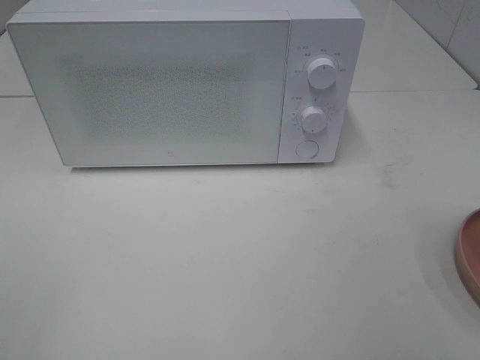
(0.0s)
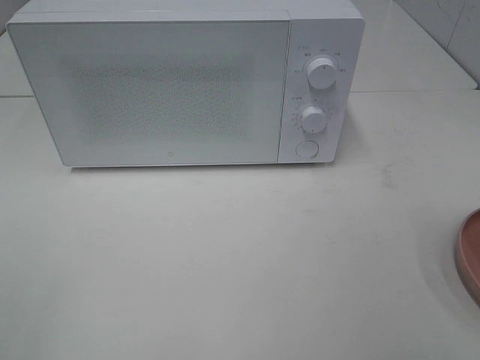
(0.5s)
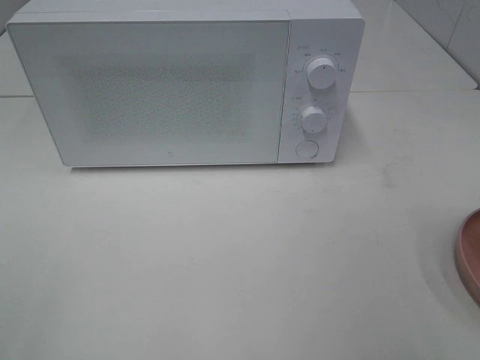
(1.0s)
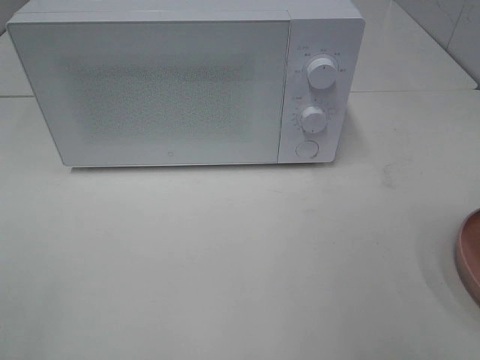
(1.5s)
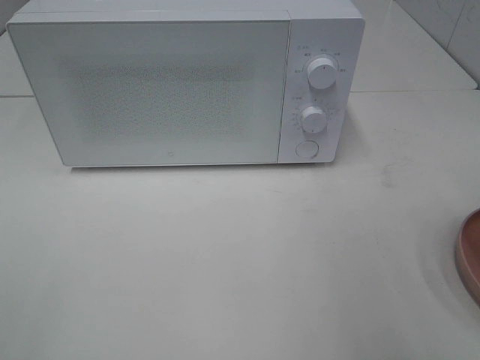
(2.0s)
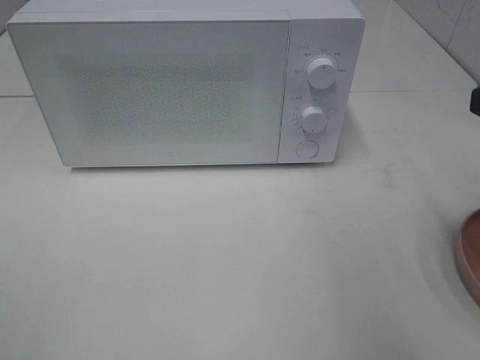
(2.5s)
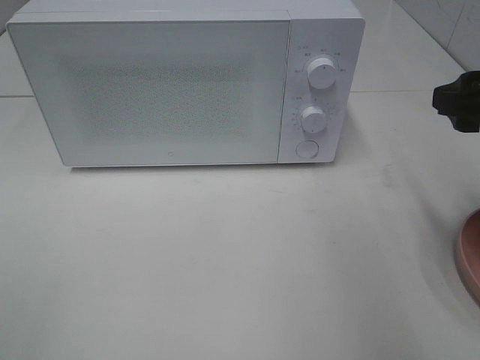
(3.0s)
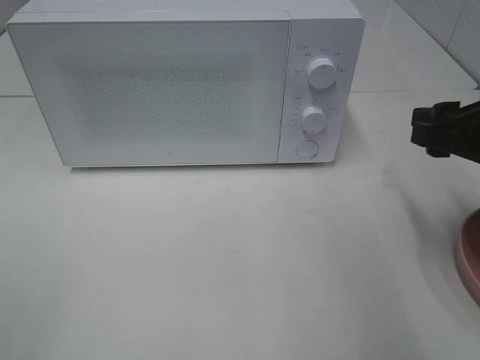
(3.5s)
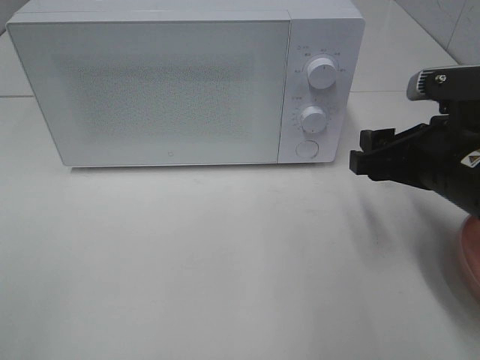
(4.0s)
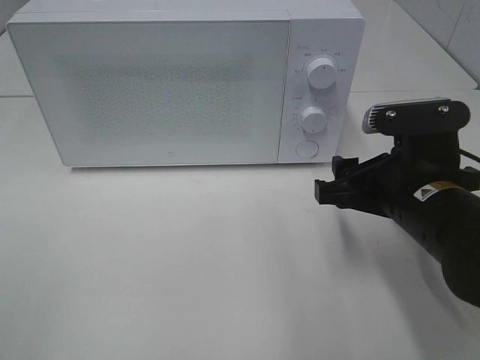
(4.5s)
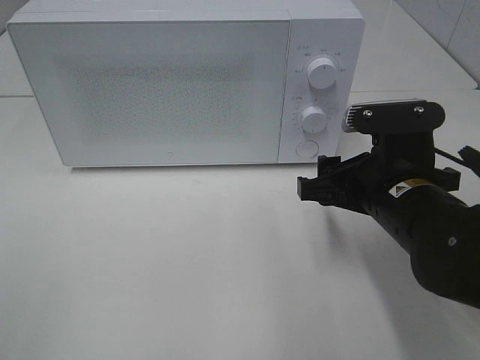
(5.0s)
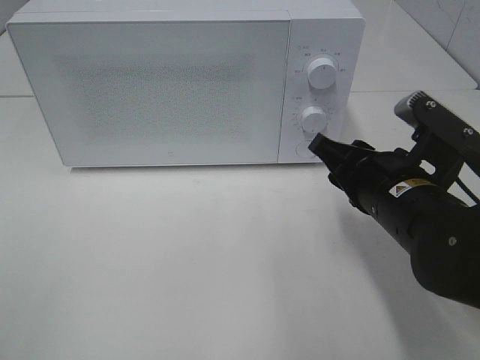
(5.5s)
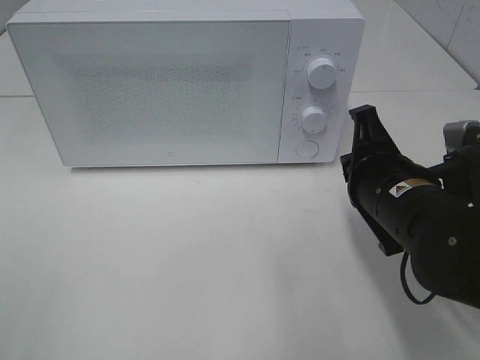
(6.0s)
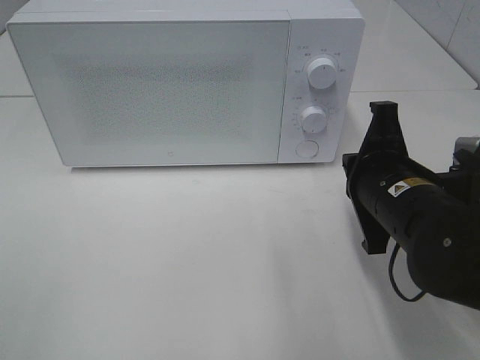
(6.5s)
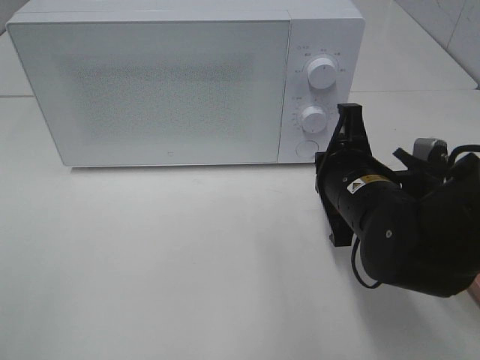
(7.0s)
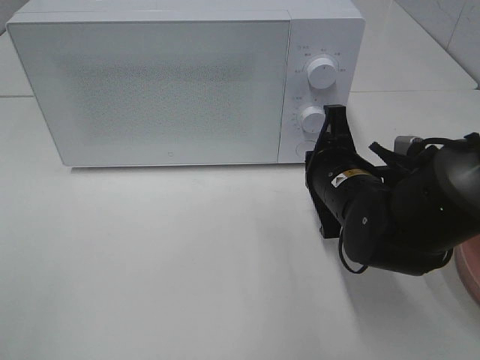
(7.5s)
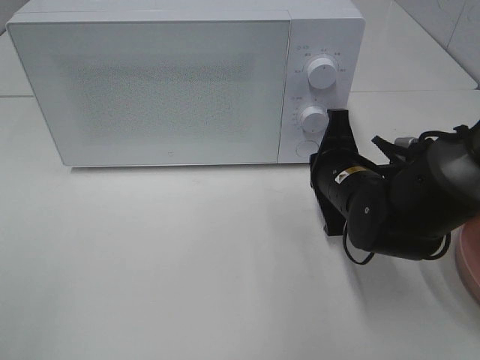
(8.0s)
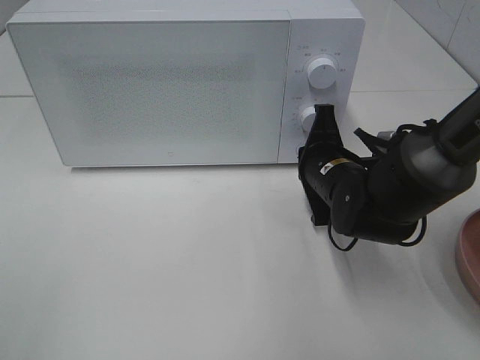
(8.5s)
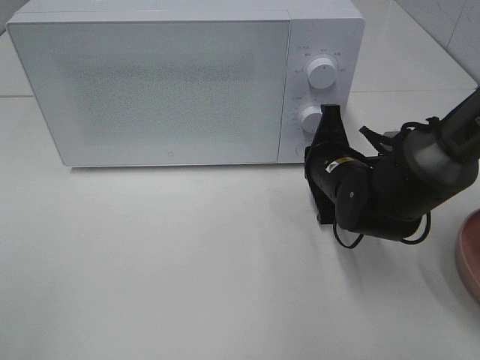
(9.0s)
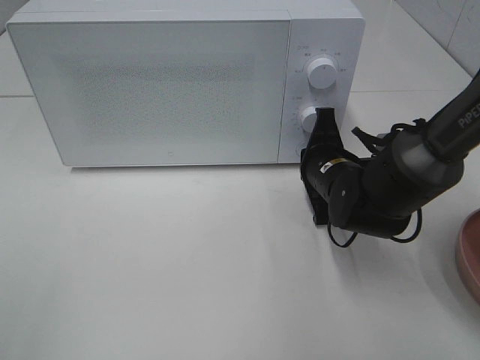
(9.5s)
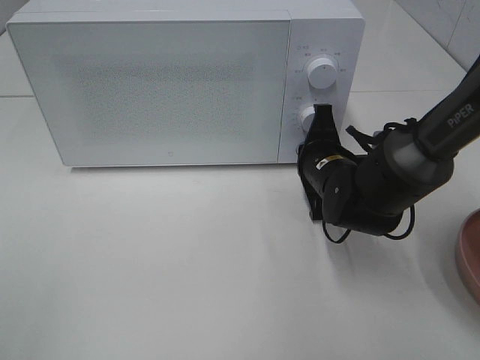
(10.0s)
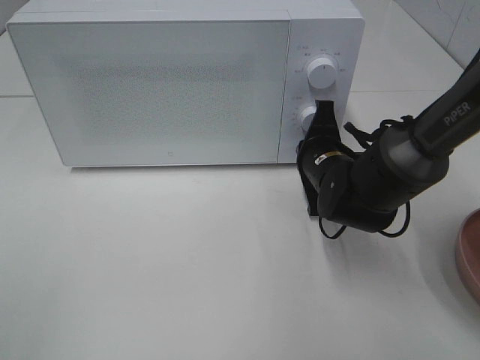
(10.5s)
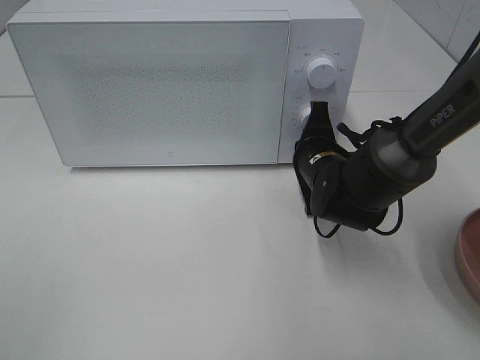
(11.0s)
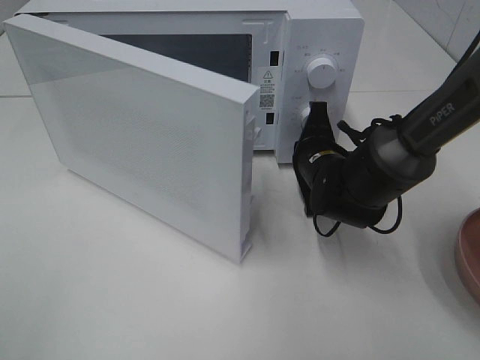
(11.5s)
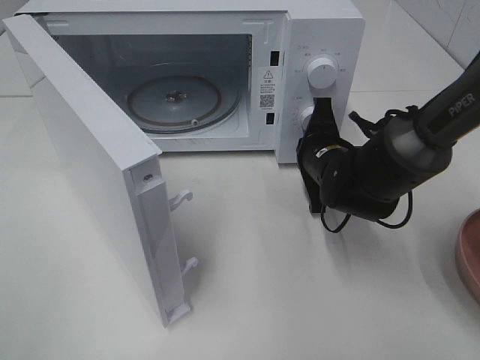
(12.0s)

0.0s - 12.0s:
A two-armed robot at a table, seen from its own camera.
Task of the whole recording: Heat the burger.
2.0s - 4.0s: The right gripper is displaced downward, forward and to the left by approximately 15 cm.
4.0s - 6.0s: The right gripper moves to the left, approximately 5 cm, and closes its fingers.
6.0s - 8.0s: The right gripper shifts roughly 5 cm forward.
8.0s - 10.0s: The grippers make only small movements.

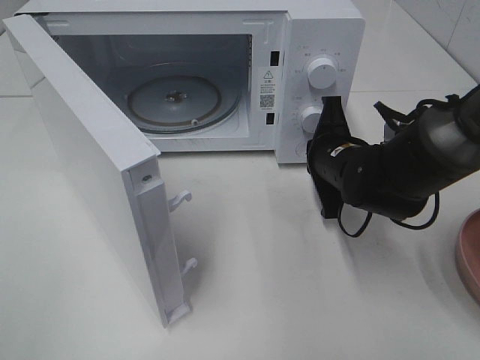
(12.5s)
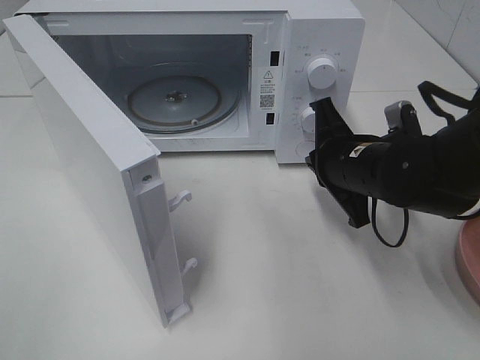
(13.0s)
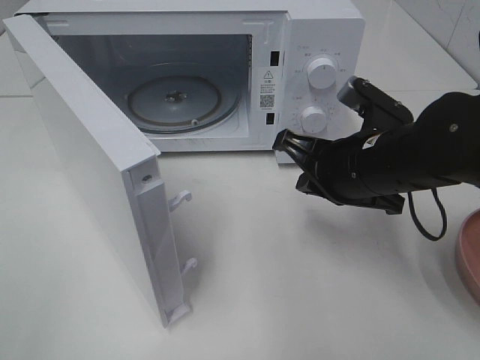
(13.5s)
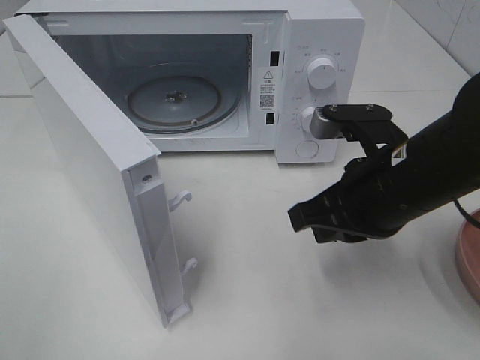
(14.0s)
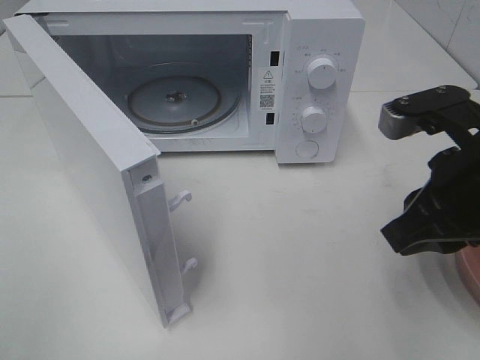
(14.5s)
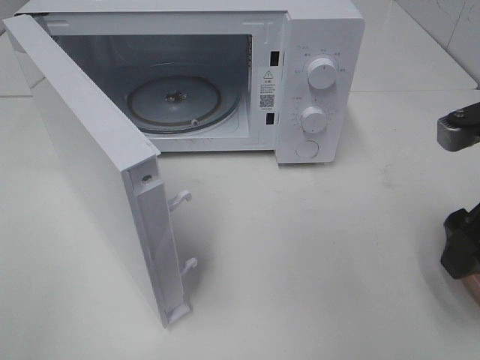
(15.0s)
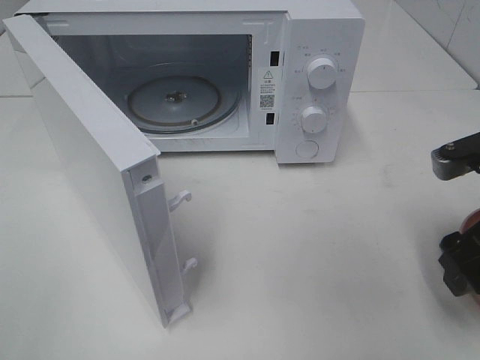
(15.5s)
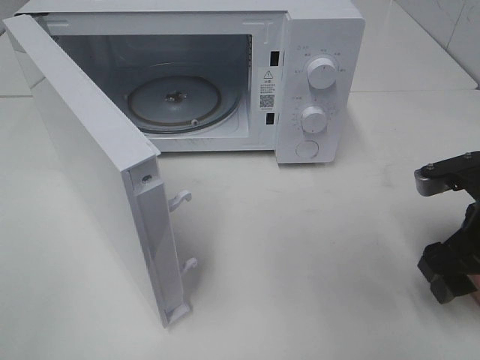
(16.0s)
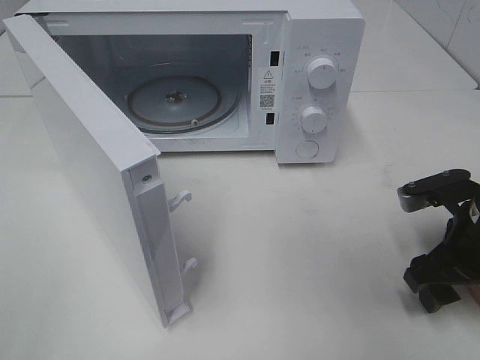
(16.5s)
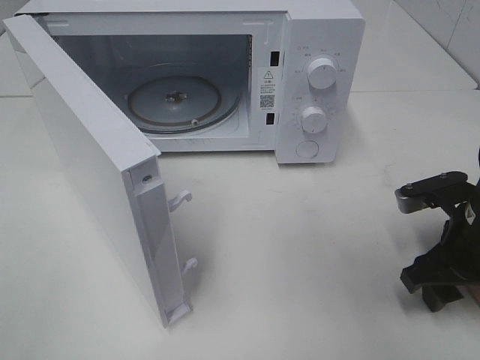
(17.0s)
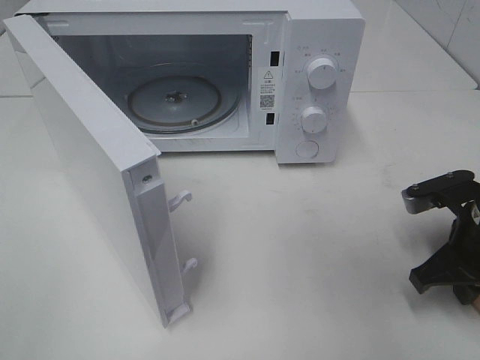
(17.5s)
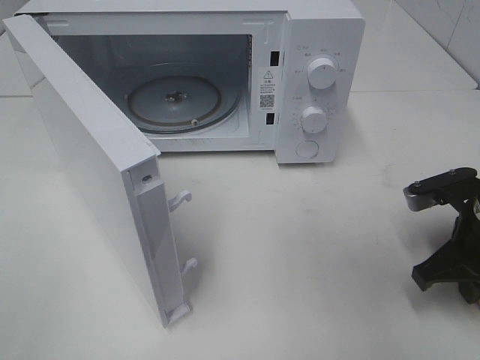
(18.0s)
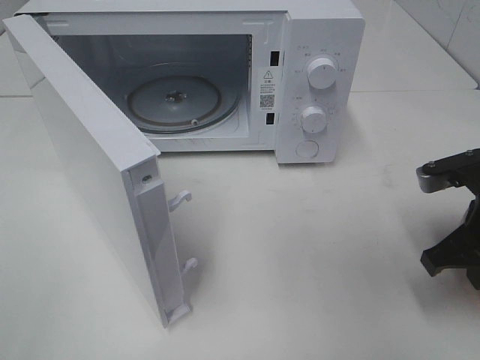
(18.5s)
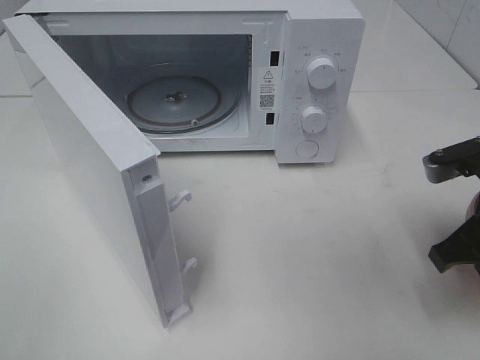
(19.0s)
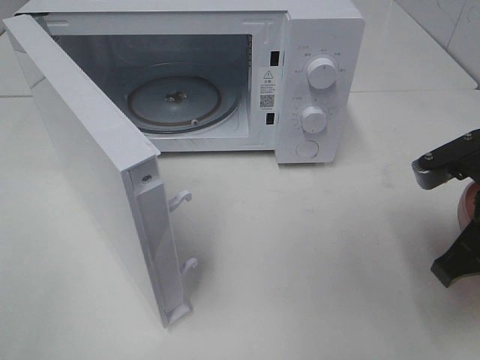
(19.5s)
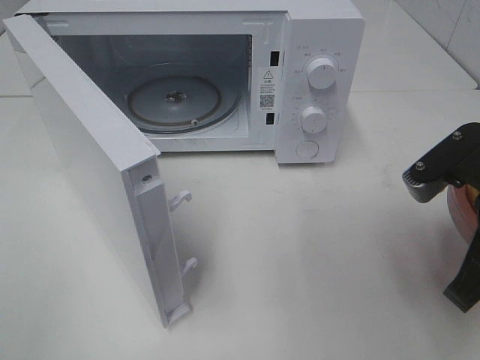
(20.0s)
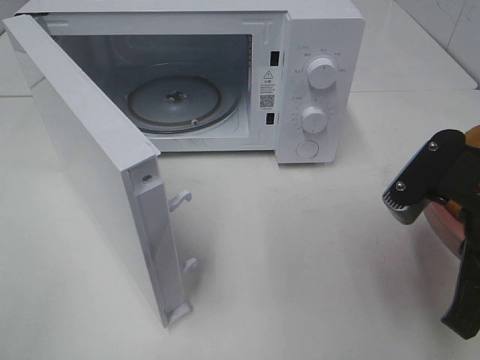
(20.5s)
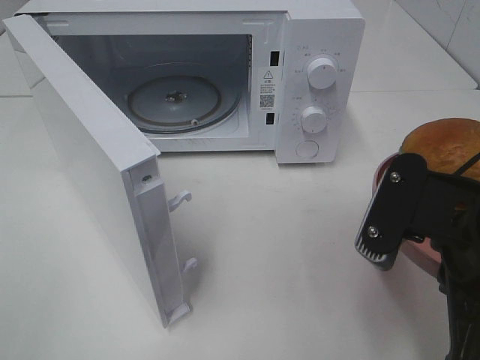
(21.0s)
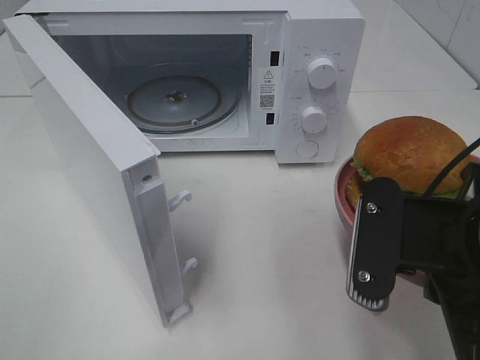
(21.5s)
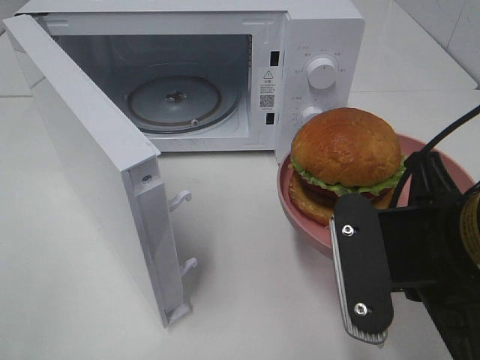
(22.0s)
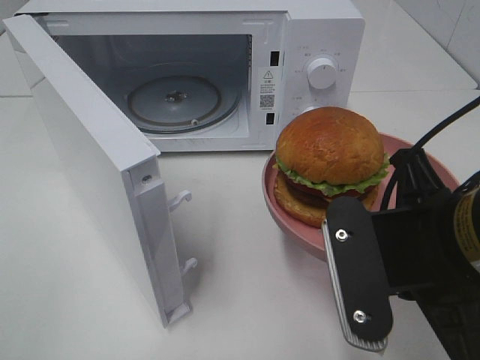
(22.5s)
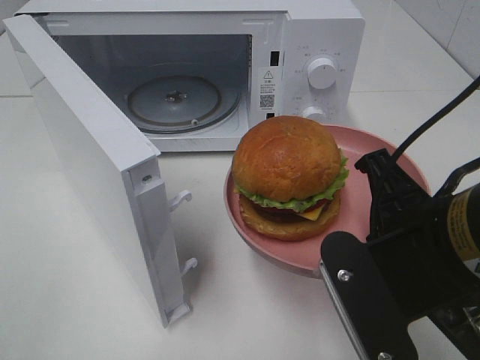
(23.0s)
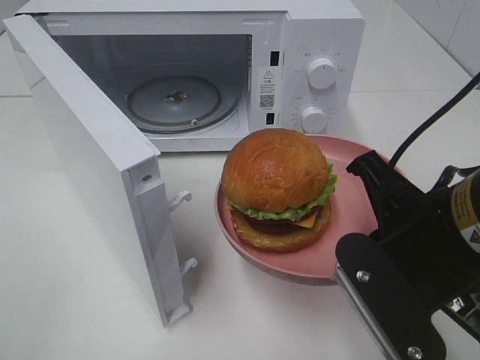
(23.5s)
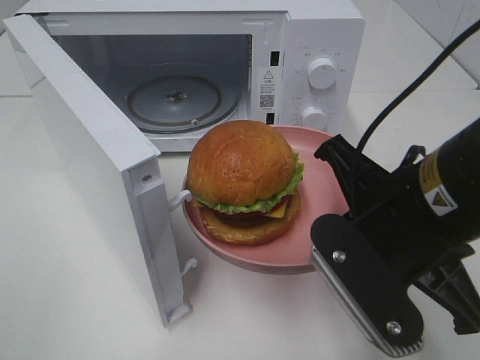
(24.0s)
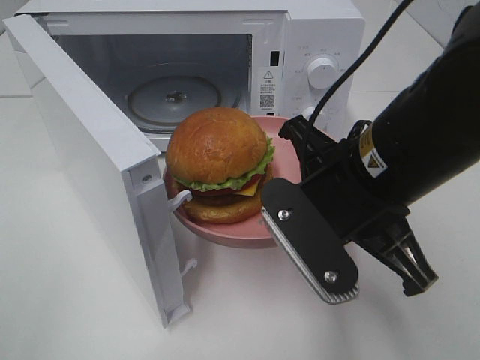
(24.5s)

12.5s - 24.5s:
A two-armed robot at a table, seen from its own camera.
Task of the whole recording: Heat the burger.
Step, 13.0s - 17.5s: Right hand: grab the plate with the hamburger.
12.5s - 14.5s: The right gripper goes about 20 cm backward and upward, and opens.
14.5s - 16.5s: The right gripper travels downward and to the right by about 10 cm, and opens its fingers.
16.5s - 18.5s: The right gripper closes up.
18.5s - 20.5s: The right gripper heads backward, upward and to the left, covering about 10 cm.
20.5s - 22.5s: The right gripper is displaced to the left by about 5 cm.
22.5s - 24.5s: The right gripper travels forward by some 5 cm.

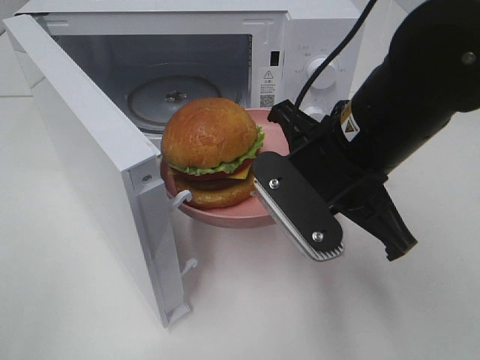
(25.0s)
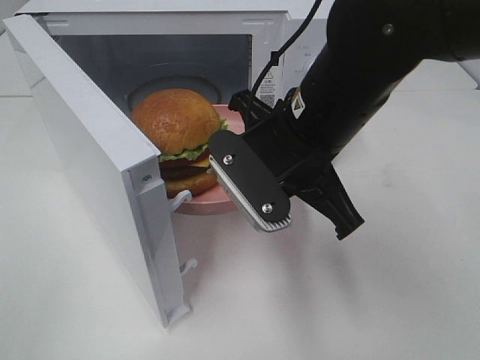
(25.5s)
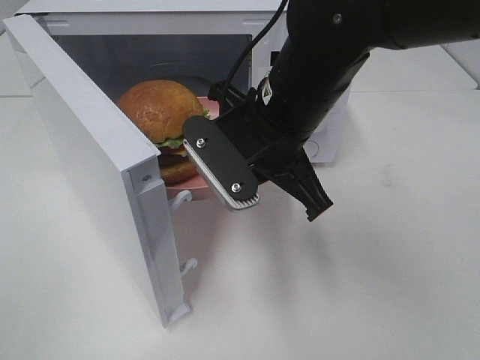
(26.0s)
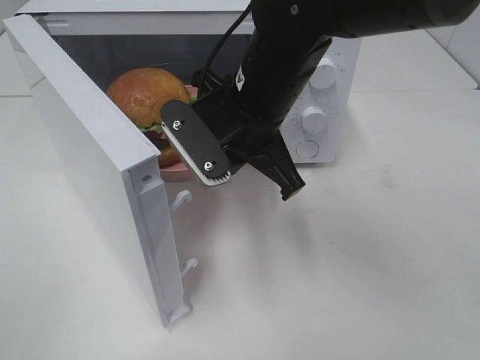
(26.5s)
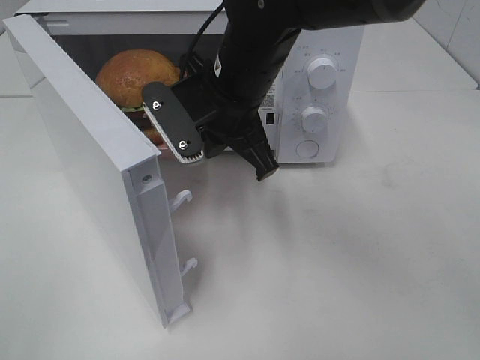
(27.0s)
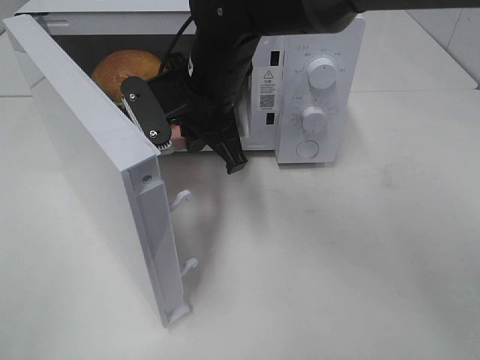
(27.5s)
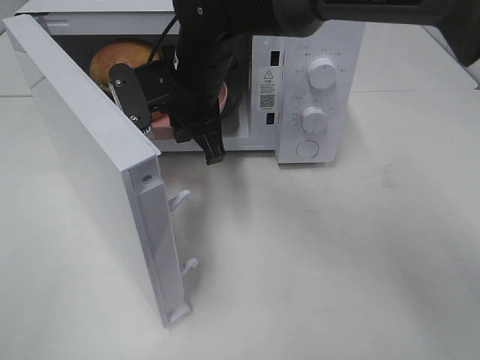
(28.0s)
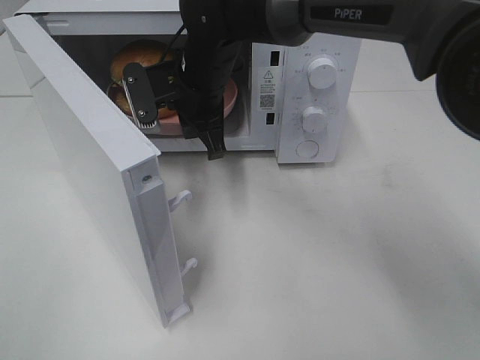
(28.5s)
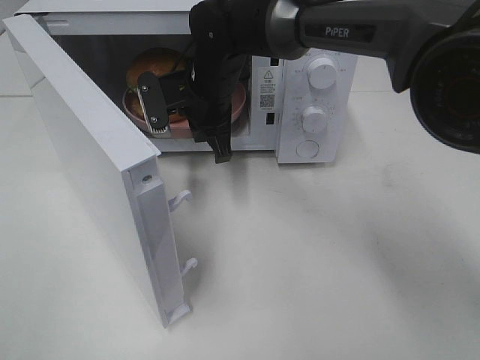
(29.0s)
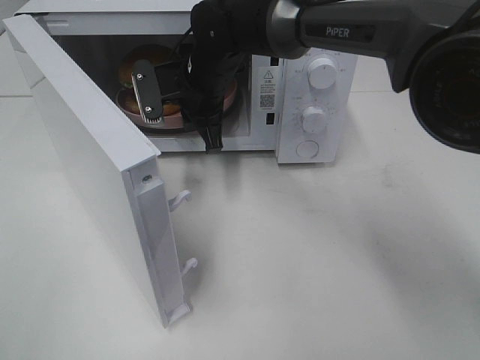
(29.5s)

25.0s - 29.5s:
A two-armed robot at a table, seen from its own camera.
Task of the whole recording: Heat the burger.
25.0s - 27.0s: The right gripper moves forward and to the left, some 15 cm.
27.0s - 29.5s: The right gripper heads forward, covering roughly 10 cm.
